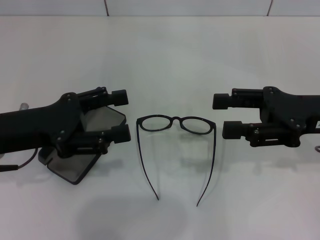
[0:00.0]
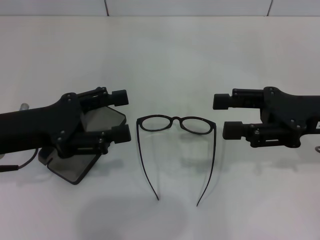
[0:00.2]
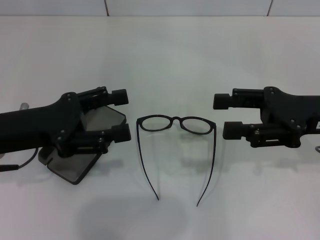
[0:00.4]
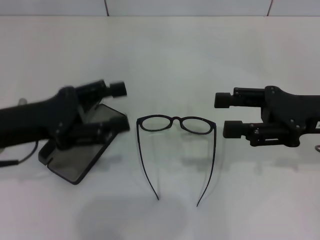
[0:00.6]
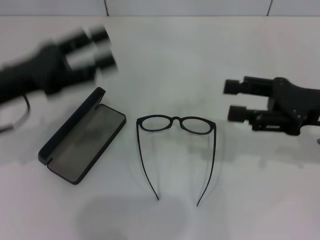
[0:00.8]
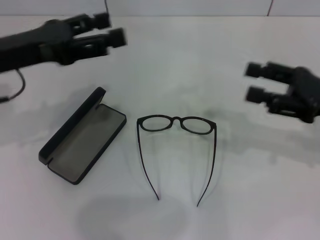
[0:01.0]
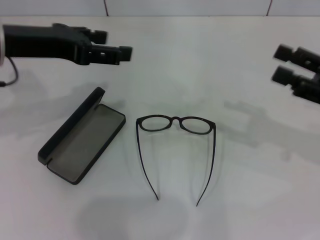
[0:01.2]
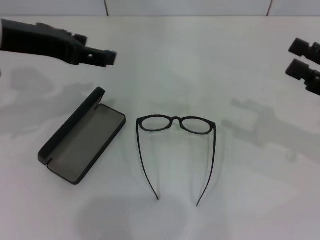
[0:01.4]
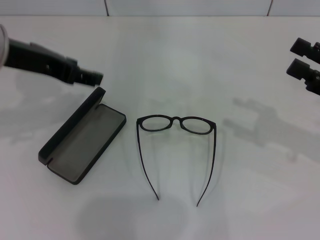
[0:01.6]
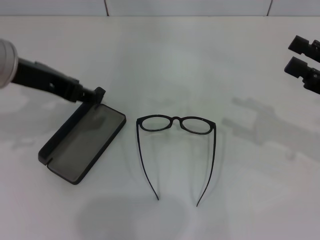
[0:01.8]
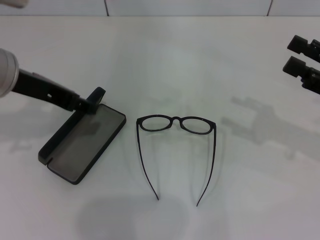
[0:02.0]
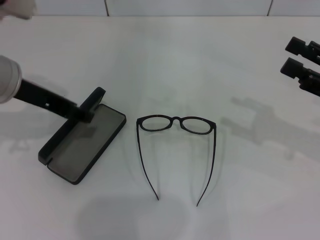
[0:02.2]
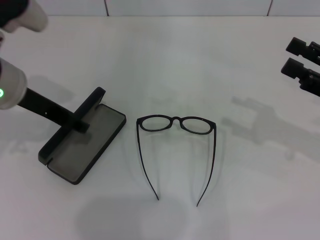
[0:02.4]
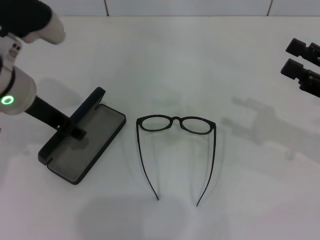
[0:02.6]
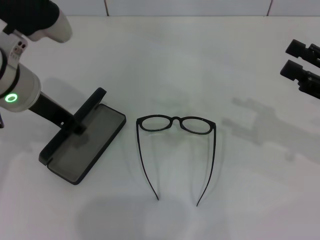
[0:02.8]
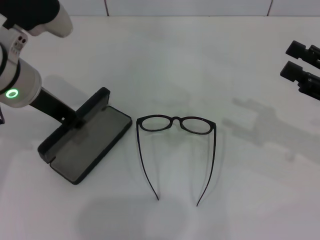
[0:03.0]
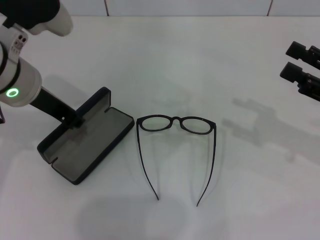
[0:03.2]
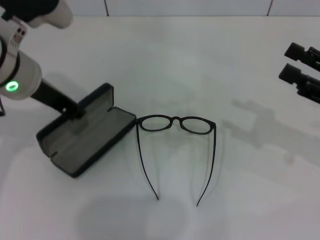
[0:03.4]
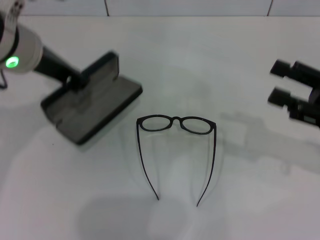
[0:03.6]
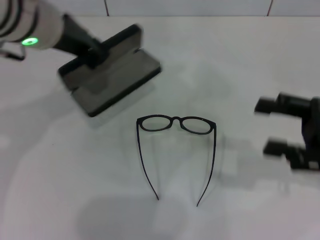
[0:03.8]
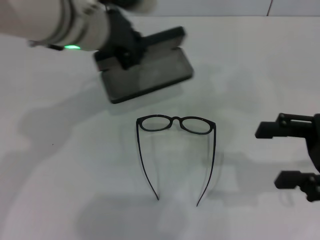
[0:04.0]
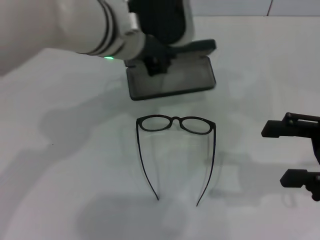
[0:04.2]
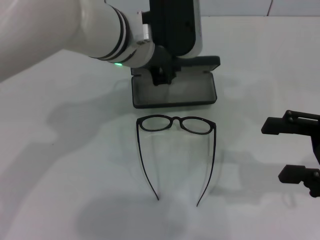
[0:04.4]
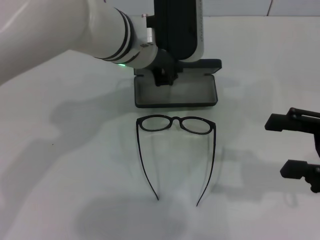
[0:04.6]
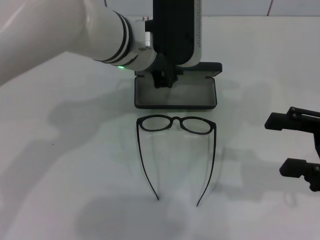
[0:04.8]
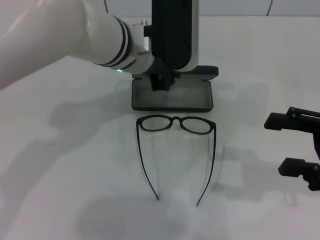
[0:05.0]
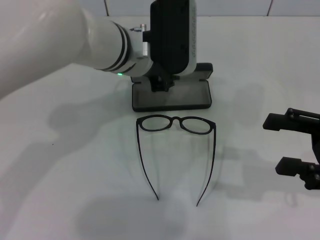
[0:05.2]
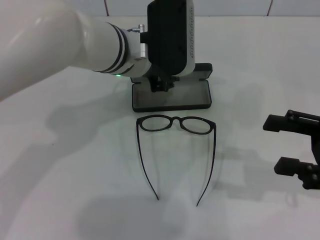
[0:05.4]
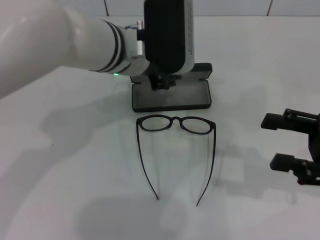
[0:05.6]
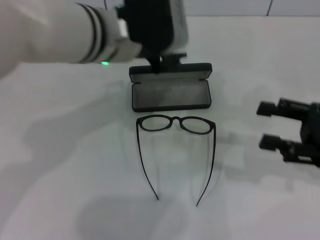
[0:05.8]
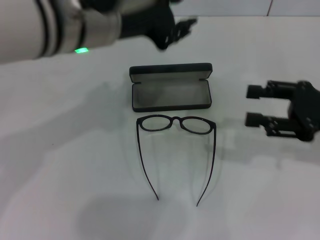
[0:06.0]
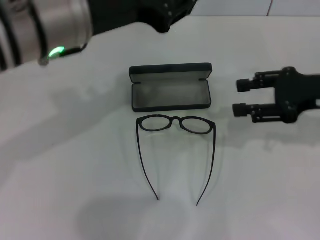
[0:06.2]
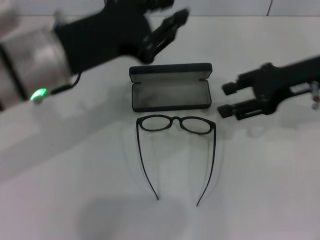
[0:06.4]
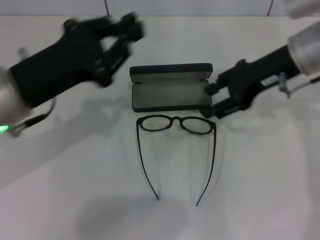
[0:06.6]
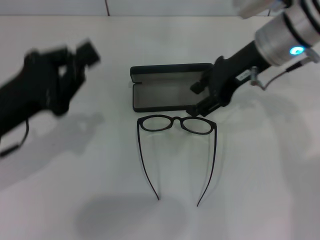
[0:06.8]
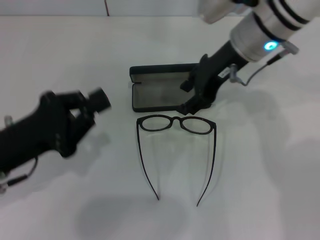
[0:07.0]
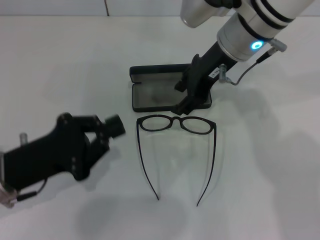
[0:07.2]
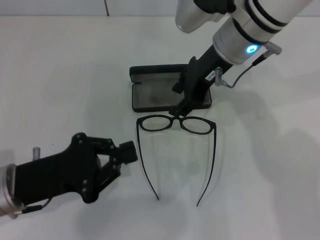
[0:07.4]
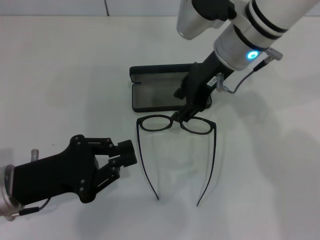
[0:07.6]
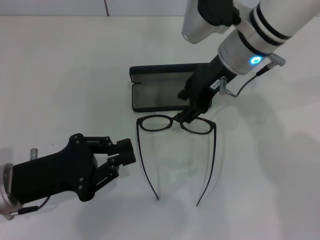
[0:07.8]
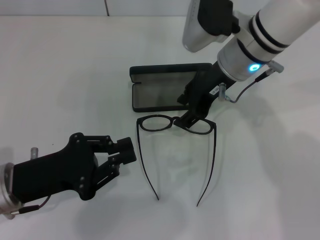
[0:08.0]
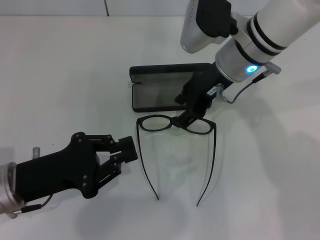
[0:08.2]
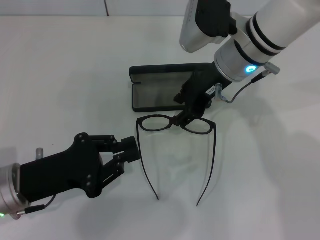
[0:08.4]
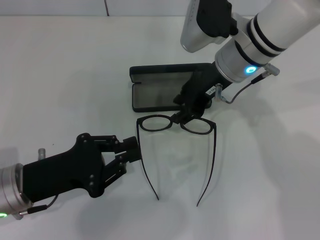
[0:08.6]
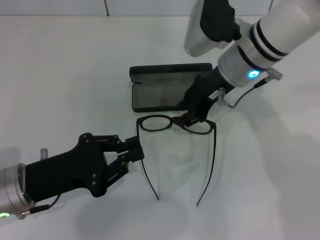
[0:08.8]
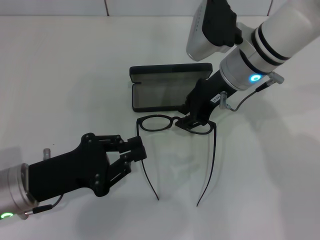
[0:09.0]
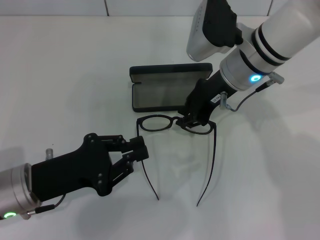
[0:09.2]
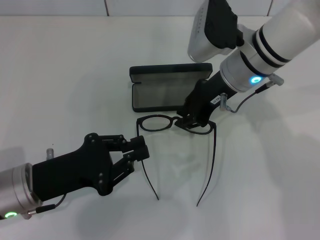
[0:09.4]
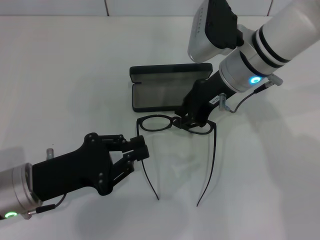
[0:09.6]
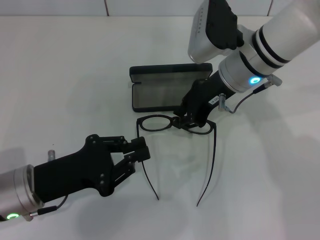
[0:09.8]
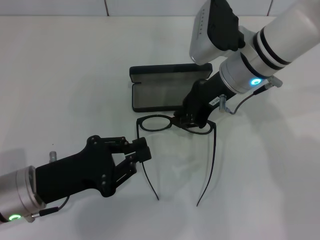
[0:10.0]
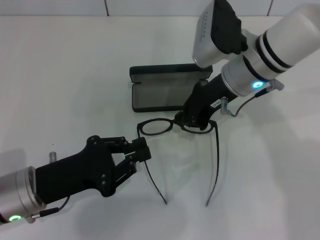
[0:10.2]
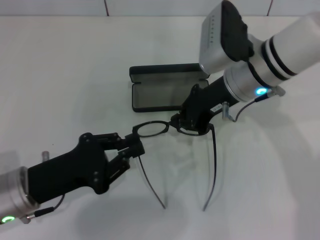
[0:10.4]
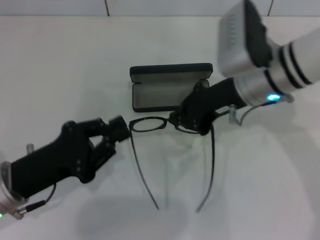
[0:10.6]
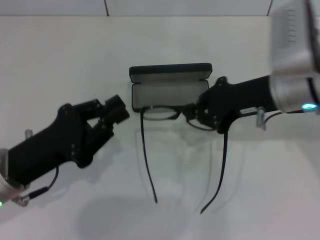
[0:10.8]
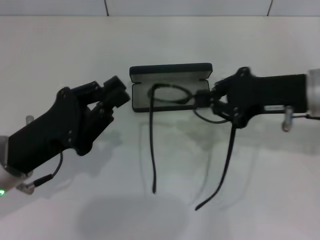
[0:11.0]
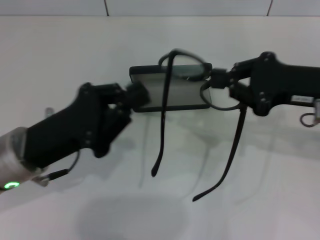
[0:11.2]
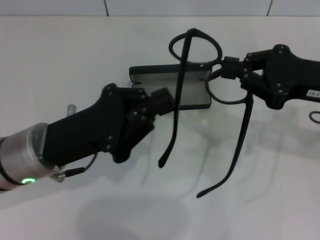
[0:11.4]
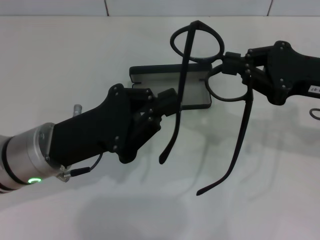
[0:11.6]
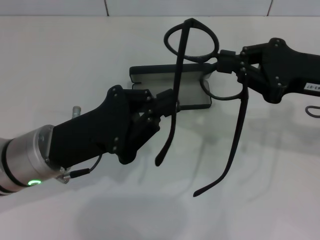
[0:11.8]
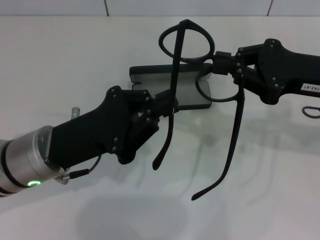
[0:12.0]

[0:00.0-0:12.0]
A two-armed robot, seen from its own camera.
Step, 0:00.0 to 0:02.8: Grab the glasses case with your left hand.
Step, 0:03.0 to 0:05.4: Place the glasses case in the center of the table with your left hand.
Step, 0:05.6 to 0:10.0: Grab the eyeglass frame with your right hand.
0:00.0 to 0:01.6: The right gripper goes roughly 5 cm to the right; the left gripper is displaced upward and forward by roughly 10 cm.
0:01.6 to 0:03.0: The left gripper shifts by about 5 cm, and closes its fingers.
0:03.0 to 0:04.4: The left gripper goes some 15 cm to the right.
0:04.4 to 0:06.0: The left gripper is displaced upward and backward by roughly 10 cm.
0:06.0 to 0:07.6: The left gripper is displaced downward, to the left and backward by some 25 cm, and closes up, while the right gripper heads to the left and forward, covering approximately 25 cm.
0:07.6 to 0:09.0: There are only small adjustments of the grippers.
0:09.0 to 0:10.4: The right gripper closes its fingers.
0:10.4 to 0:12.0: The left gripper moves some 5 cm. Meanwhile the right gripper heads to the right and backward, covering approximately 15 cm.

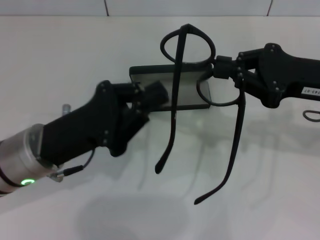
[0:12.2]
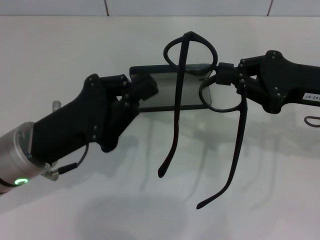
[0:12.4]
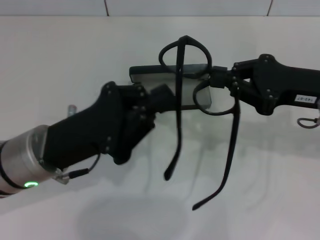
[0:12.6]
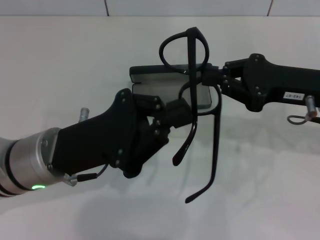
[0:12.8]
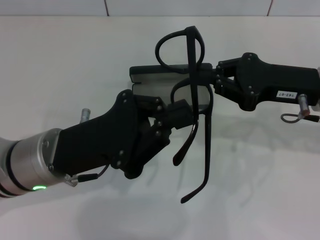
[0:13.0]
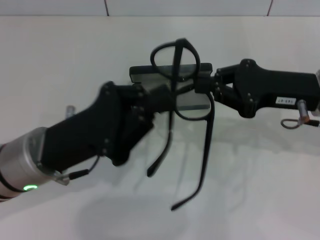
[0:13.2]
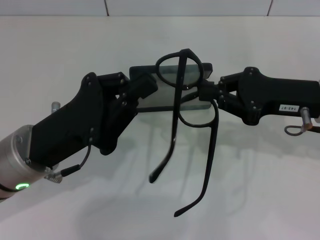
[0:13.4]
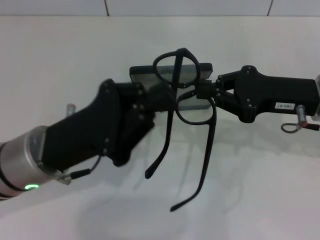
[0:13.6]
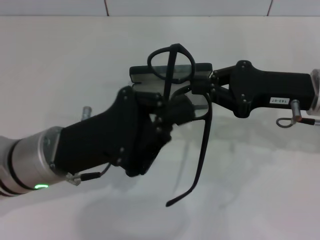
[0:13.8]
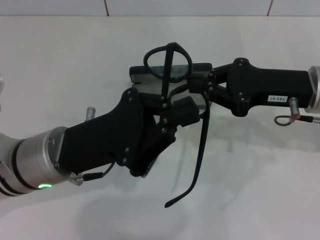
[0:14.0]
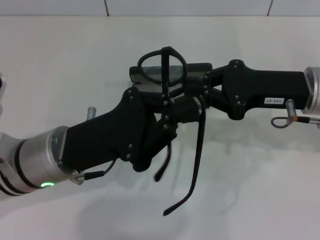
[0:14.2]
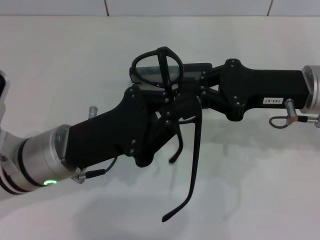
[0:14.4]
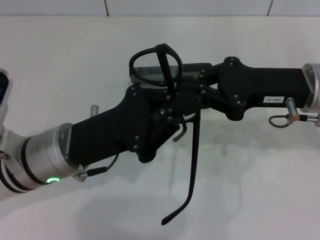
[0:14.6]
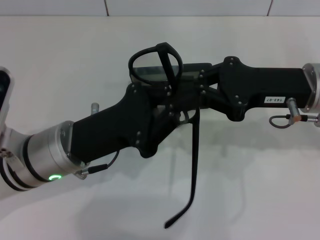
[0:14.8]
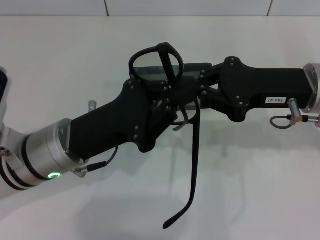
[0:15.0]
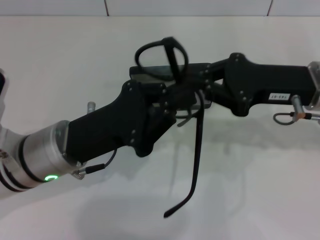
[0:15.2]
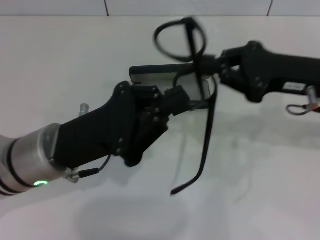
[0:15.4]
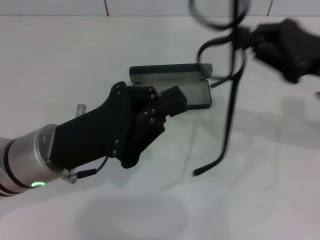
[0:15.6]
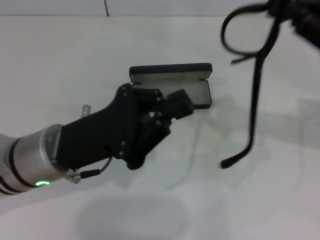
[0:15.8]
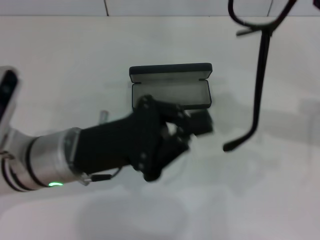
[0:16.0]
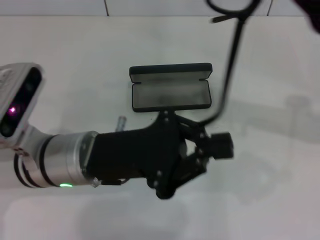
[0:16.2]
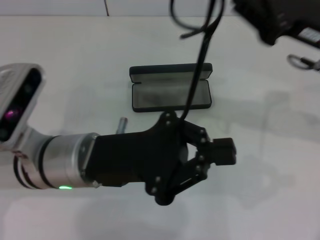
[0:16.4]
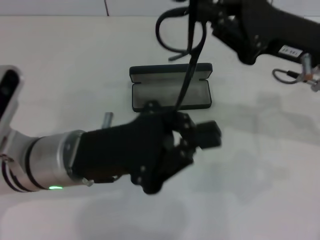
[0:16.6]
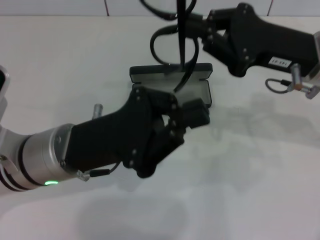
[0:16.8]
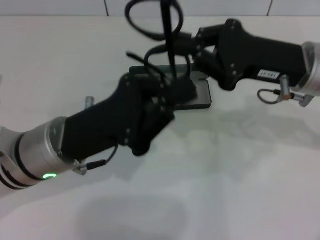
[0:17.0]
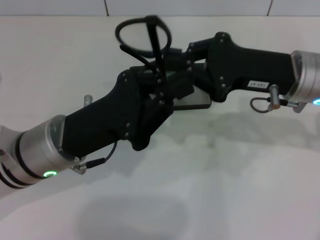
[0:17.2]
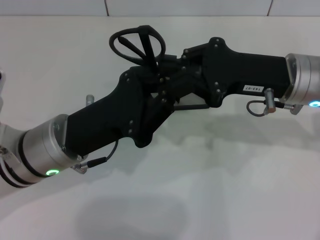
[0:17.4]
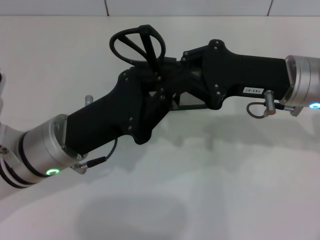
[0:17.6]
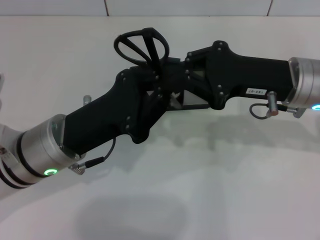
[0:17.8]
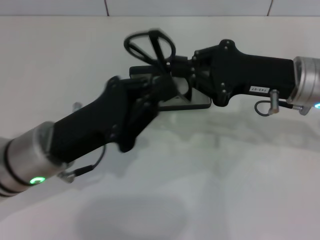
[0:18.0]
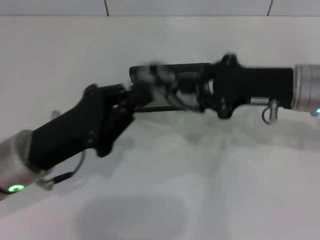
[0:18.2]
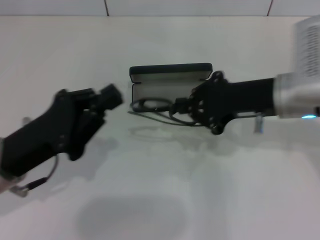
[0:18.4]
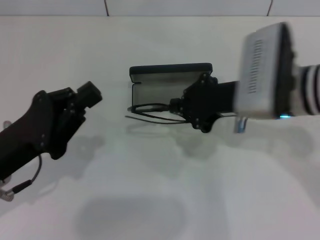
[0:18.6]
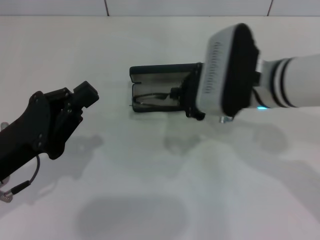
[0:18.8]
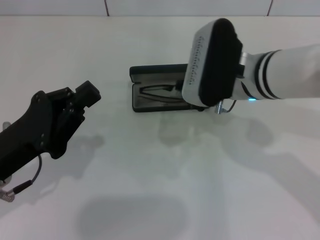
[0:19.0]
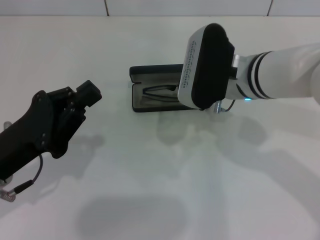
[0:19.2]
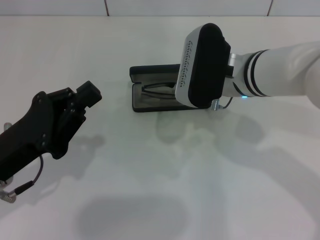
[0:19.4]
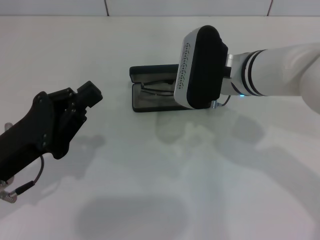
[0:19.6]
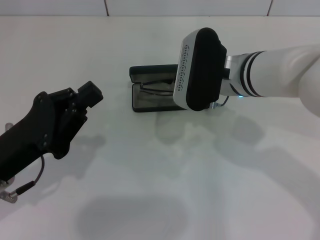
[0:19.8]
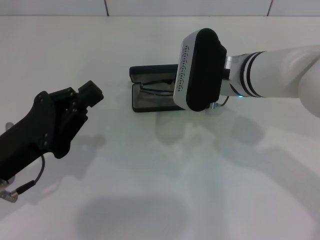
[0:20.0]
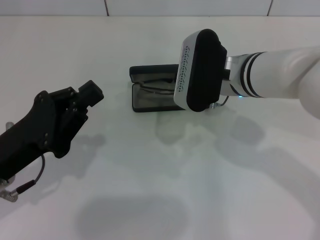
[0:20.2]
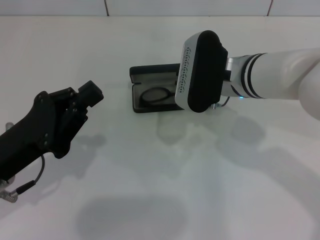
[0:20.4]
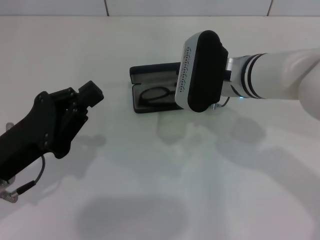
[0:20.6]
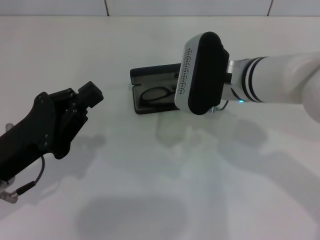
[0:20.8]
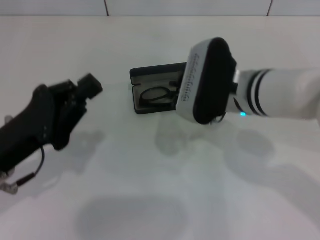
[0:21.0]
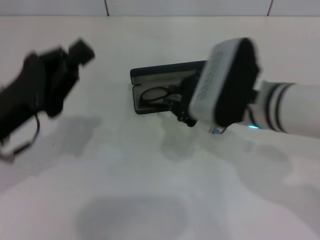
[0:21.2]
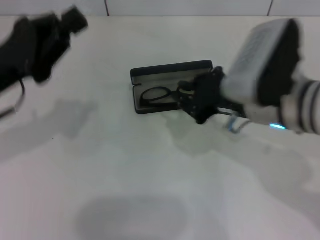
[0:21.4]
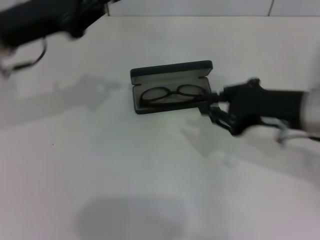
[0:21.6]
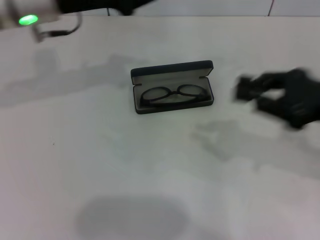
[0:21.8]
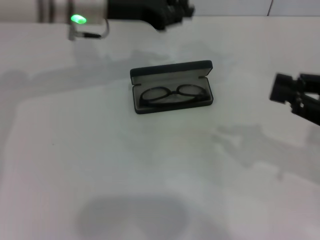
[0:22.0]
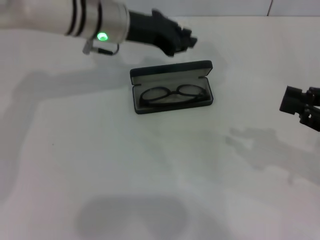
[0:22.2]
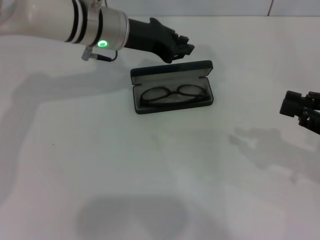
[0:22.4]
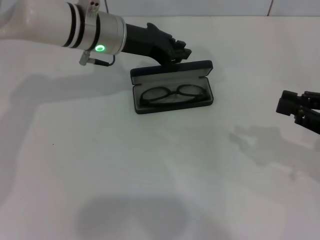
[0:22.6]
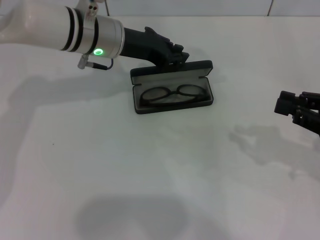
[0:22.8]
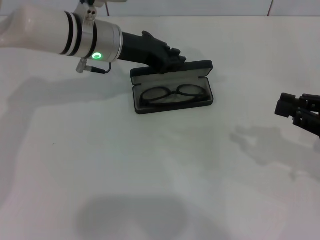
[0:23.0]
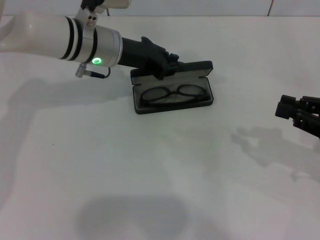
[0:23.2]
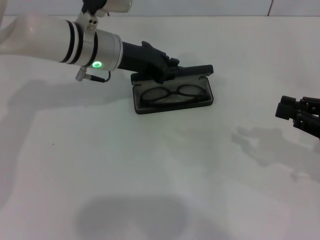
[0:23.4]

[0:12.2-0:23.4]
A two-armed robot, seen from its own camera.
Step, 0:12.2 to 0:17.4: Fold the frame with your left hand.
Step, 0:17.6 to 0:20.6: Put the glasses into the case with your right hand.
0:13.8 to 0:15.4: The grippers stay close to where they were, moving slightly.
0:17.0 to 0:18.6: The right gripper goes roughly 5 cm to the left. Meanwhile the left gripper shifts about 10 cm to the left.
0:18.6 to 0:20.2: The right gripper is displaced to the left by some 5 cm.
0:20.2 to 0:21.8: The right gripper shifts about 20 cm to the right and backward. Meanwhile the left gripper is displaced forward and upward by roughly 25 cm.
0:21.8 to 0:23.4: The right gripper goes some 10 cm to the right and downward. The left gripper heads downward and to the right, covering approximately 10 cm.
